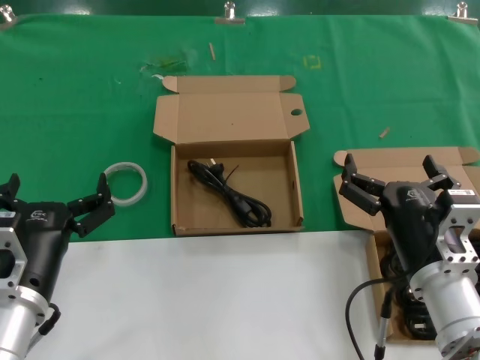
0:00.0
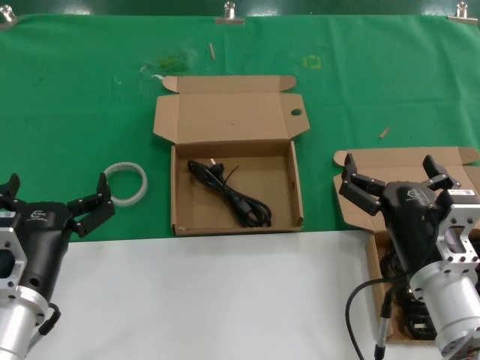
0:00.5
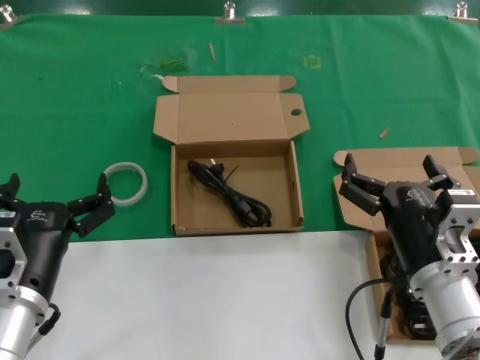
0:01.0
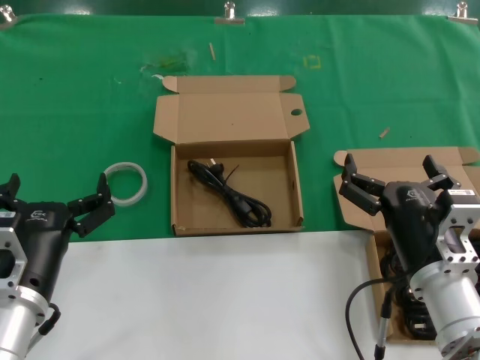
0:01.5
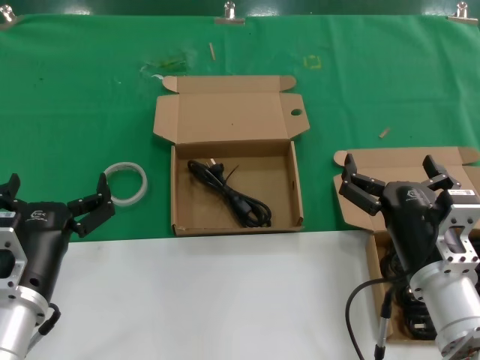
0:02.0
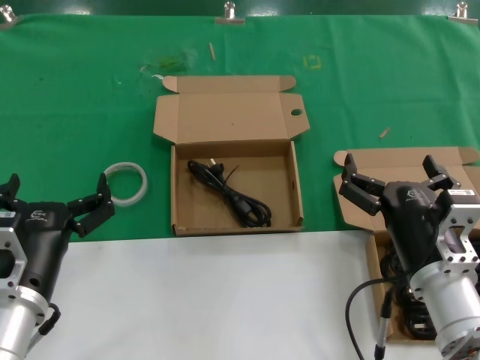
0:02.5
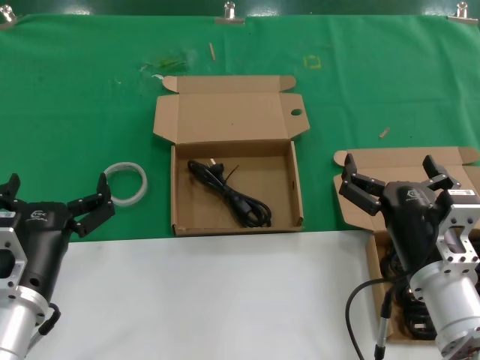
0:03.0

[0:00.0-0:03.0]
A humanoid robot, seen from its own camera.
Task of the whole recording: take the parts from the box containing them and put them into an empty box.
0:00.0 to 0:03.0: The two hands keep their place.
